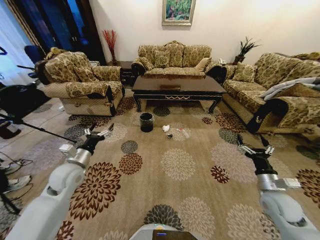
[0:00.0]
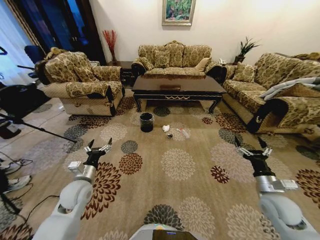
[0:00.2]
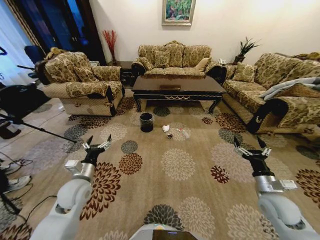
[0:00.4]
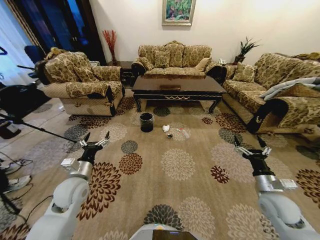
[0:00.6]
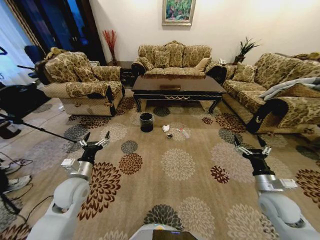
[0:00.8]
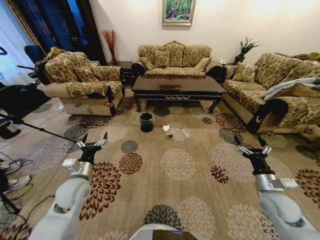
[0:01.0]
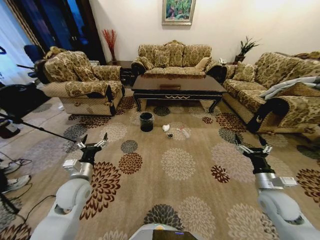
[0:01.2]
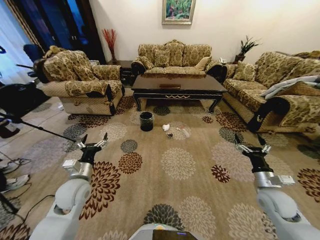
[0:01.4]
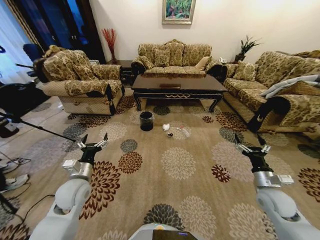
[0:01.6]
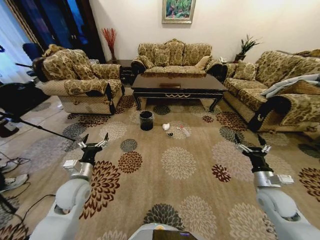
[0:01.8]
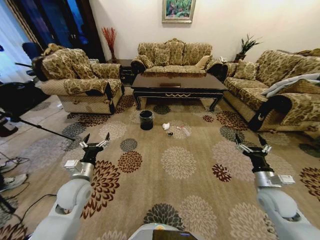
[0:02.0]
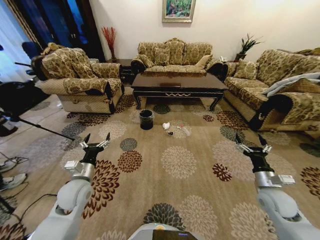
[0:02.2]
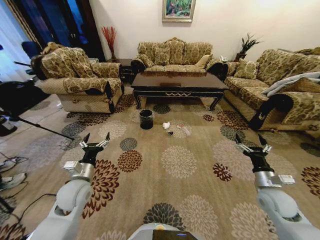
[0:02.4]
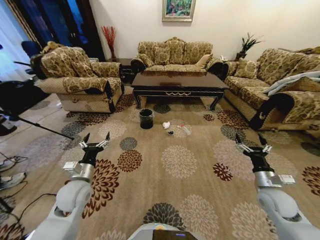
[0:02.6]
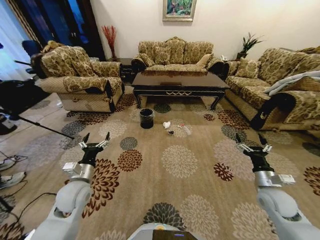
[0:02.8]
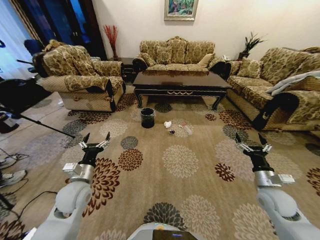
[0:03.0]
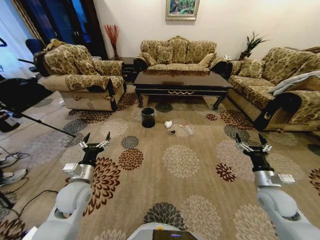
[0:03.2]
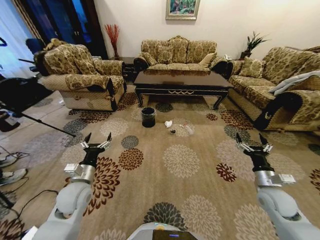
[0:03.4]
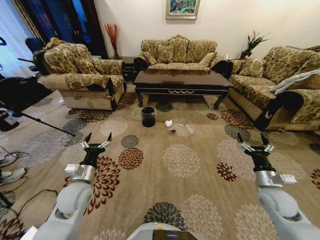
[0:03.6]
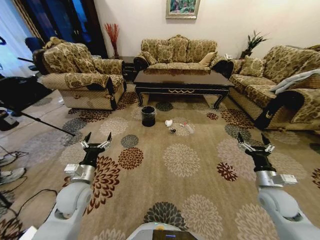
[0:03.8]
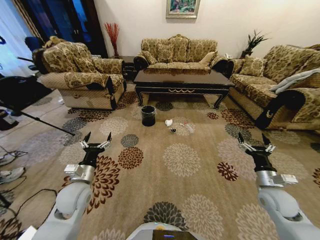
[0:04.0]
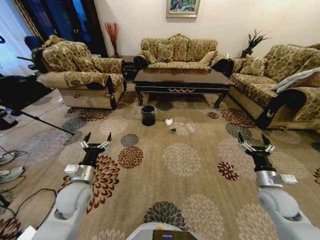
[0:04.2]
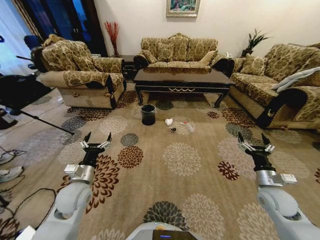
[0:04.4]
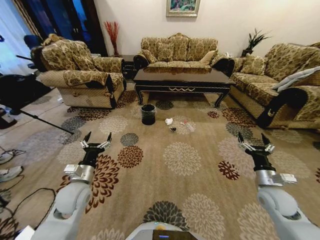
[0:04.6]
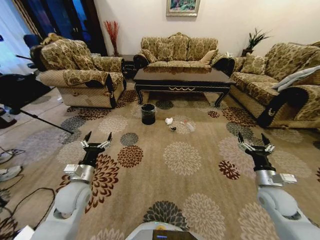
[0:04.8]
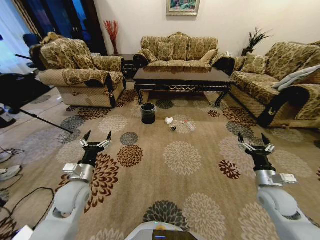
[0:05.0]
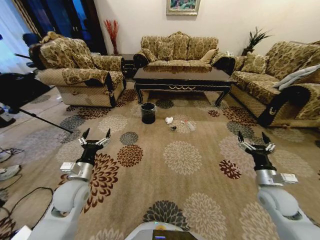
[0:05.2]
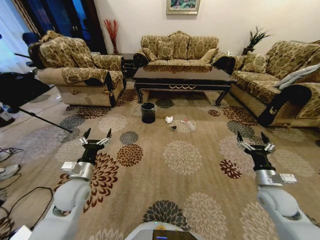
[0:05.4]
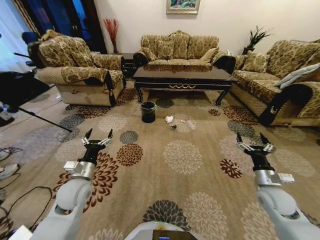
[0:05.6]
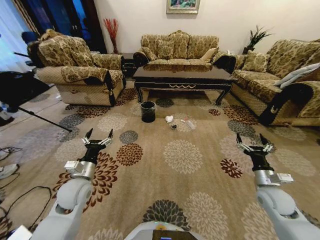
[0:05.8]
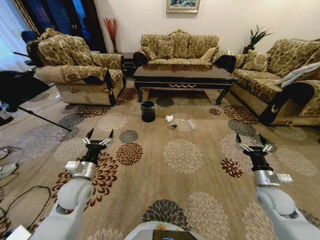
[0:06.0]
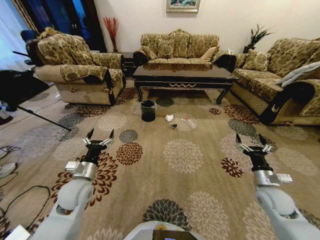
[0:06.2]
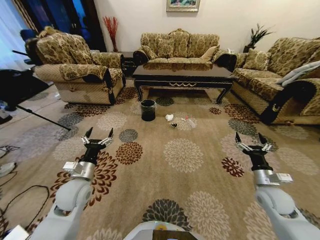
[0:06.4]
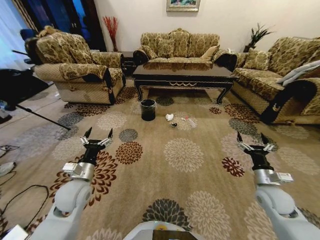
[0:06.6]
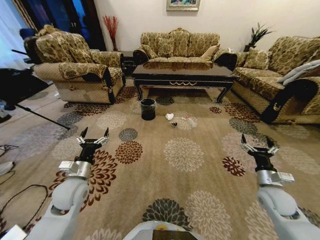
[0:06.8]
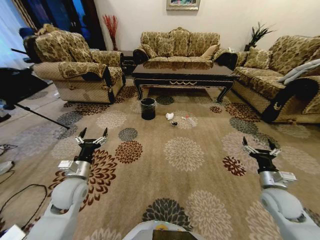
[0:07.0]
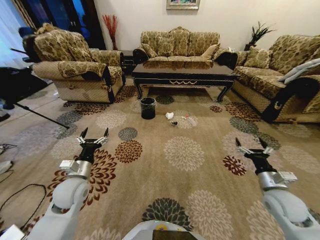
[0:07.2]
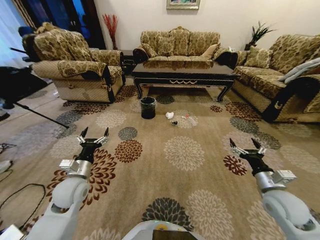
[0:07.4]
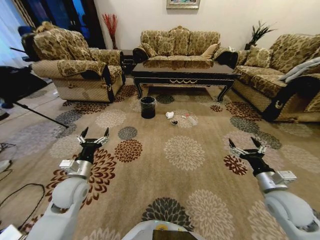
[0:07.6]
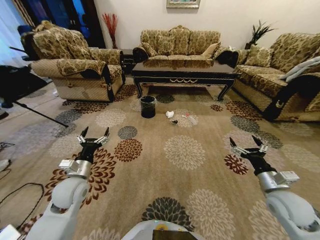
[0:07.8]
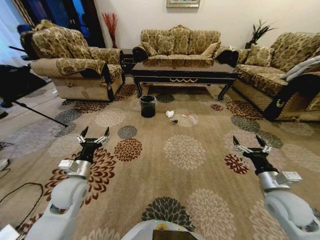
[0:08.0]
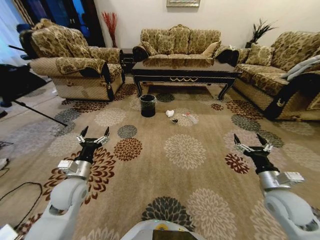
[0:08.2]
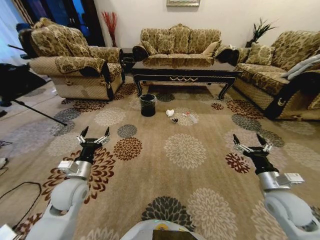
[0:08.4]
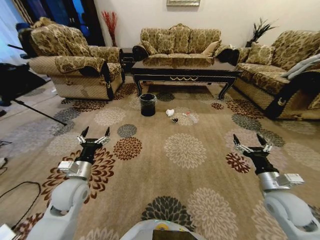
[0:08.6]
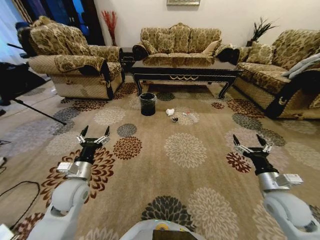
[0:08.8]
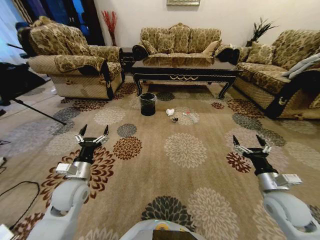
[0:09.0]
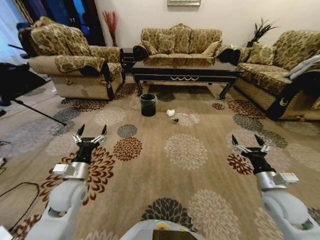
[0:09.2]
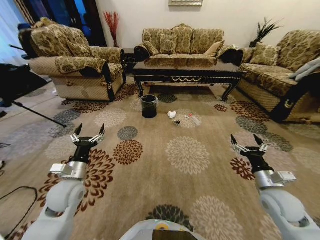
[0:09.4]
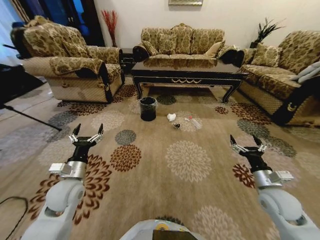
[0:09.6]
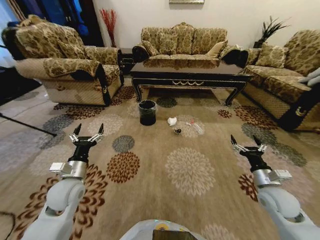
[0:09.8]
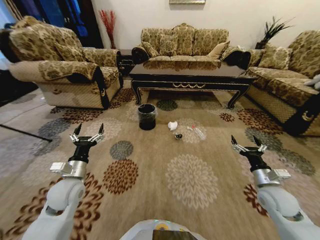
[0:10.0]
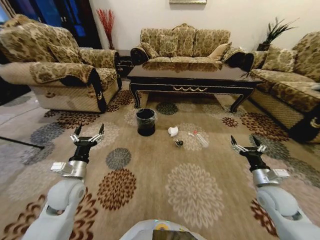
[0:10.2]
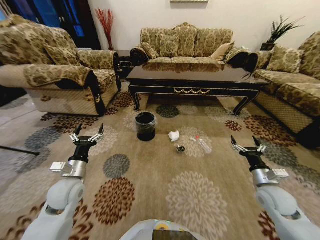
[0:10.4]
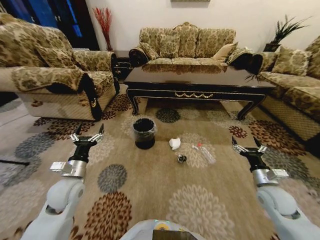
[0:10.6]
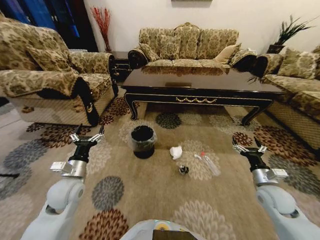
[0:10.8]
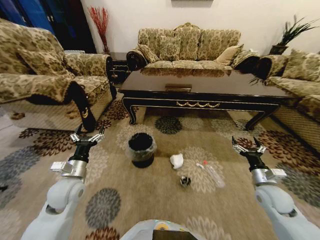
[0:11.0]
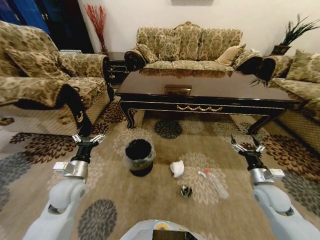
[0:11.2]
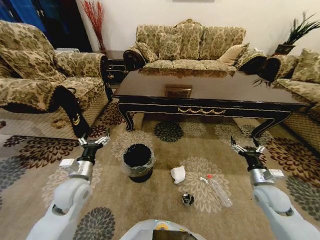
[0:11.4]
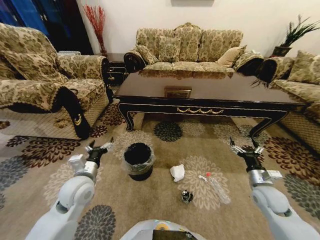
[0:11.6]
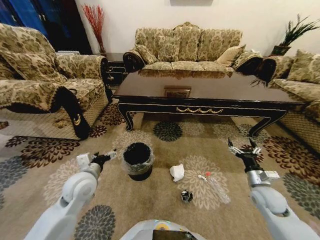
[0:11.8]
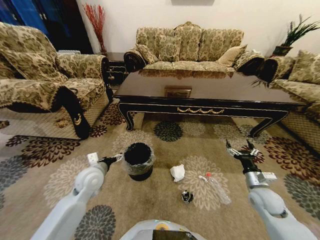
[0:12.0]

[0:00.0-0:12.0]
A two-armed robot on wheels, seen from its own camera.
Task of the whole recording: Move to the front of the table and pick up the trash from the floor, then place it into the trash bin.
0:06.0 to 0:07.6: The right gripper shifts about 5 cm upward.
0:10.4 to 0:12.0: The left gripper shifts by roughly 5 cm.

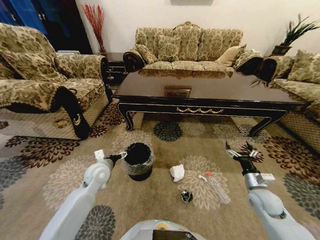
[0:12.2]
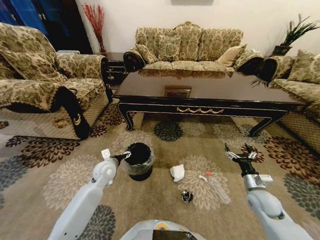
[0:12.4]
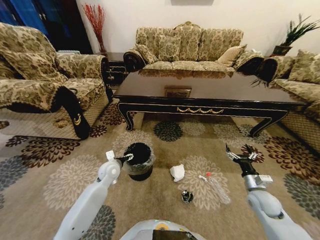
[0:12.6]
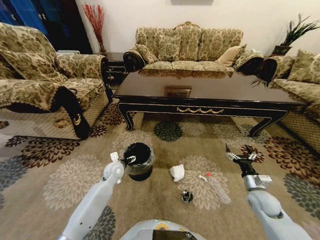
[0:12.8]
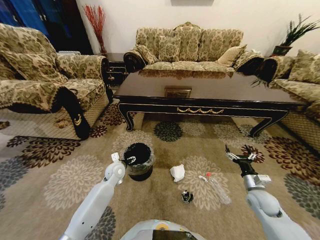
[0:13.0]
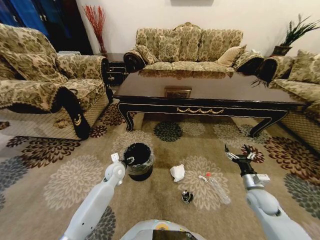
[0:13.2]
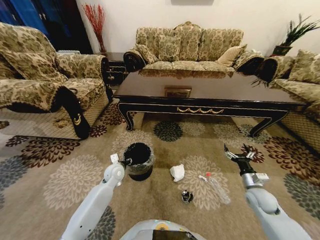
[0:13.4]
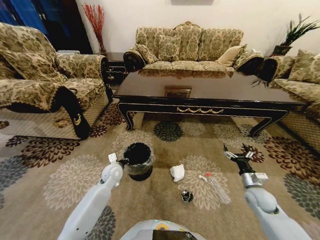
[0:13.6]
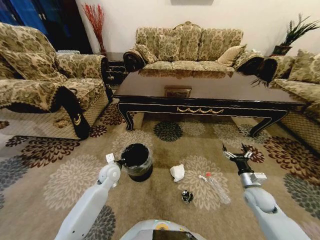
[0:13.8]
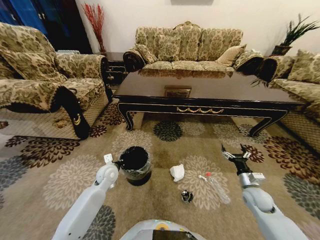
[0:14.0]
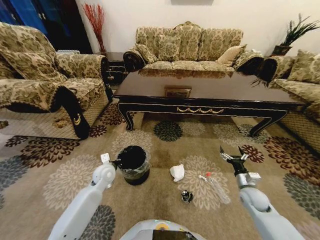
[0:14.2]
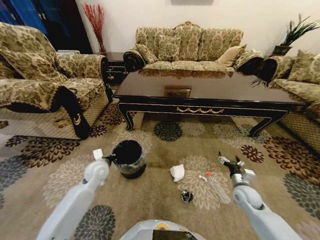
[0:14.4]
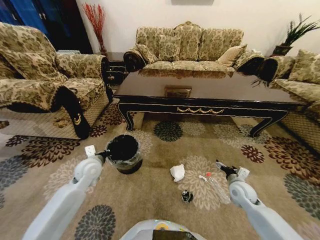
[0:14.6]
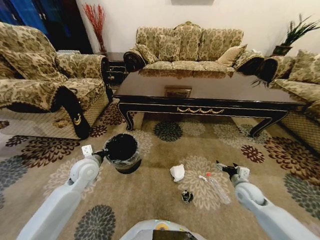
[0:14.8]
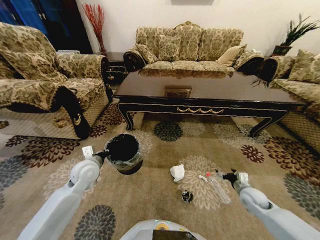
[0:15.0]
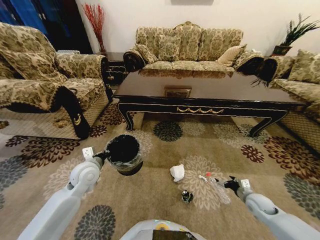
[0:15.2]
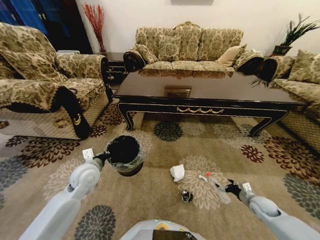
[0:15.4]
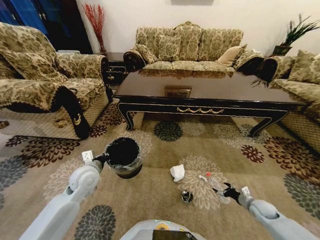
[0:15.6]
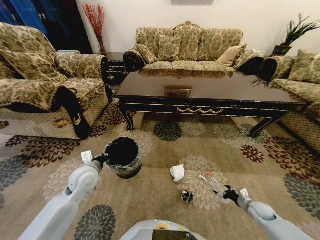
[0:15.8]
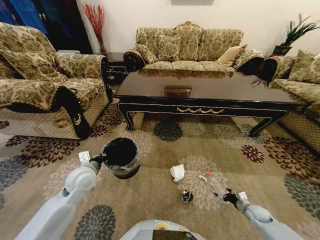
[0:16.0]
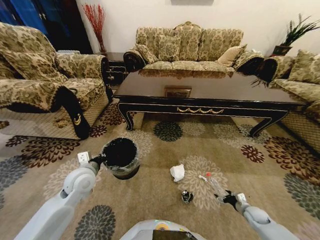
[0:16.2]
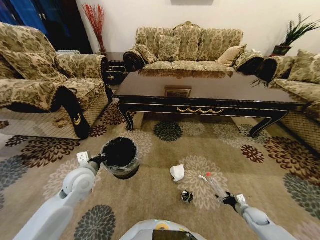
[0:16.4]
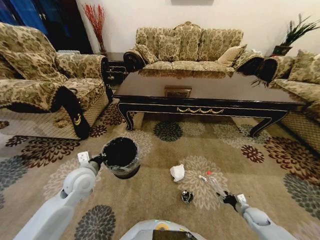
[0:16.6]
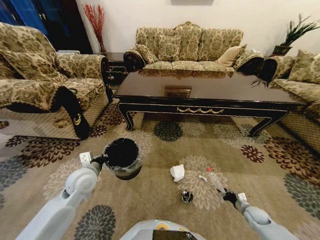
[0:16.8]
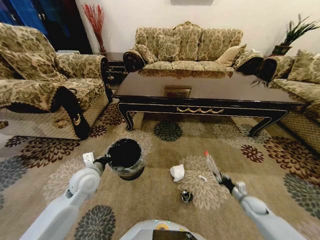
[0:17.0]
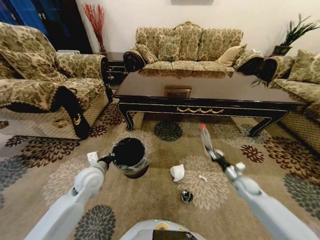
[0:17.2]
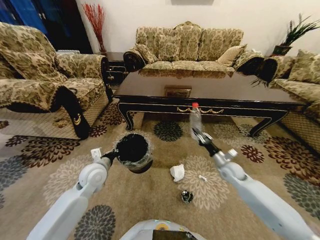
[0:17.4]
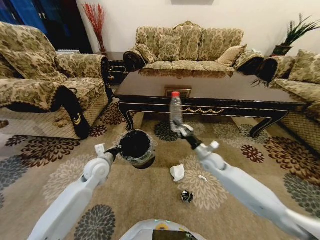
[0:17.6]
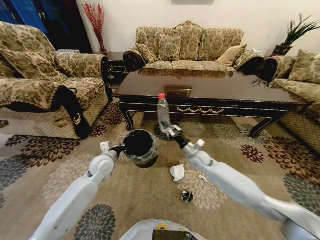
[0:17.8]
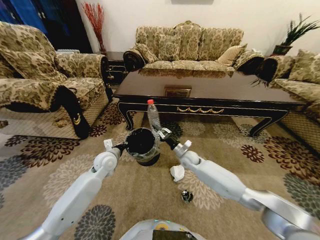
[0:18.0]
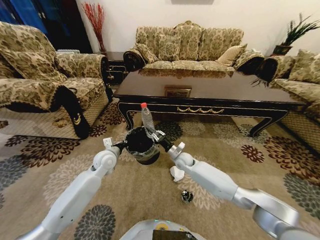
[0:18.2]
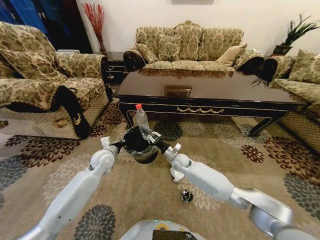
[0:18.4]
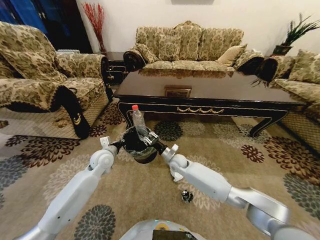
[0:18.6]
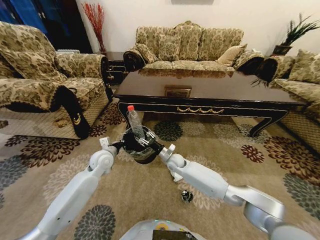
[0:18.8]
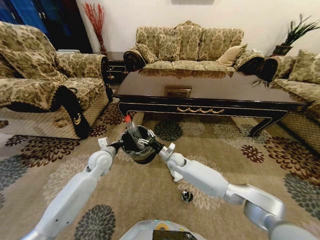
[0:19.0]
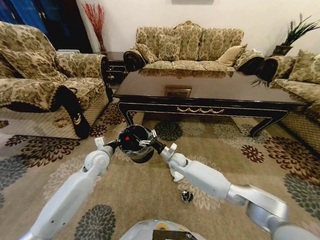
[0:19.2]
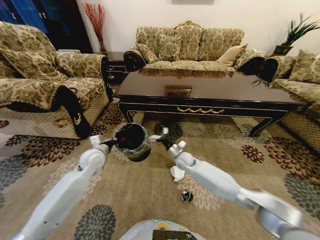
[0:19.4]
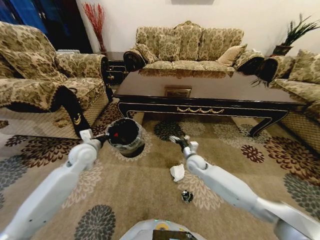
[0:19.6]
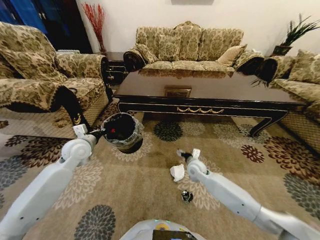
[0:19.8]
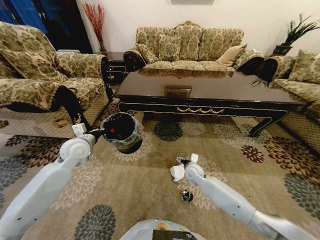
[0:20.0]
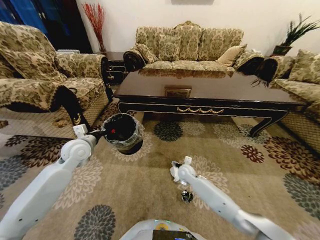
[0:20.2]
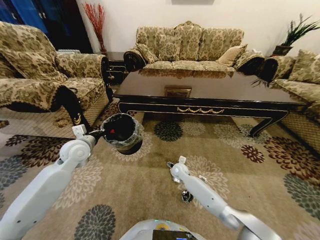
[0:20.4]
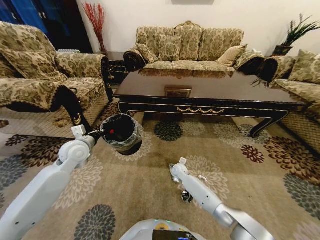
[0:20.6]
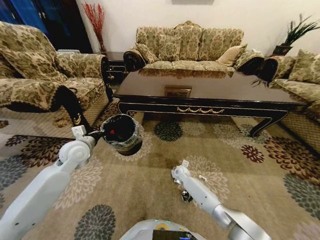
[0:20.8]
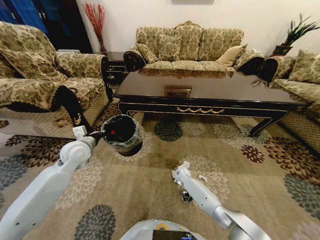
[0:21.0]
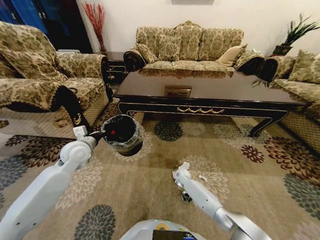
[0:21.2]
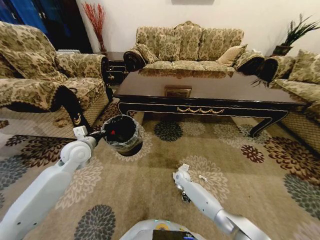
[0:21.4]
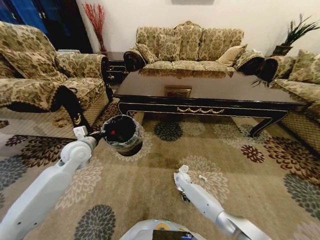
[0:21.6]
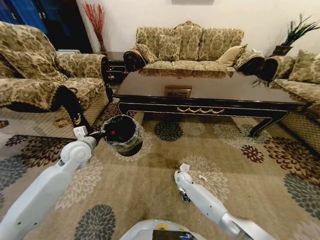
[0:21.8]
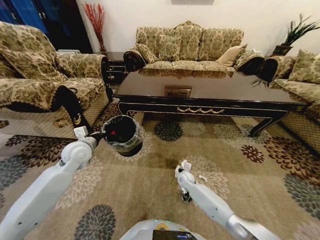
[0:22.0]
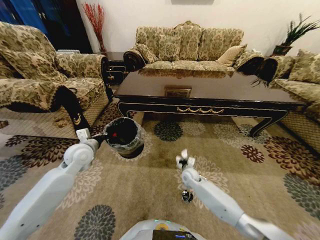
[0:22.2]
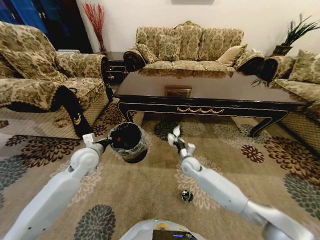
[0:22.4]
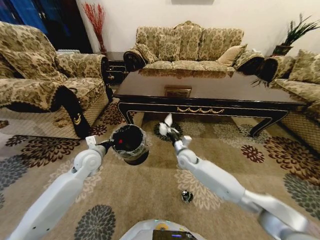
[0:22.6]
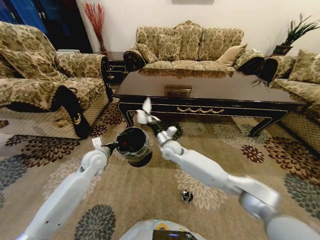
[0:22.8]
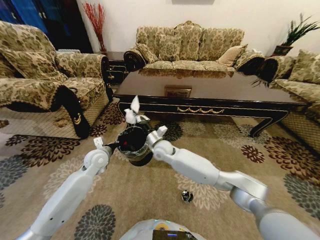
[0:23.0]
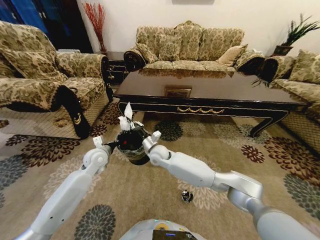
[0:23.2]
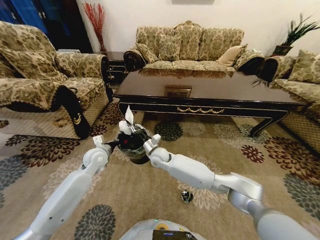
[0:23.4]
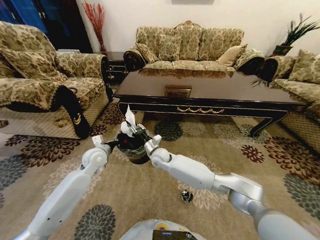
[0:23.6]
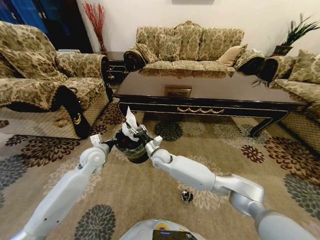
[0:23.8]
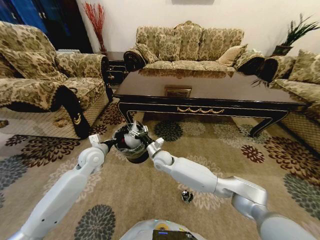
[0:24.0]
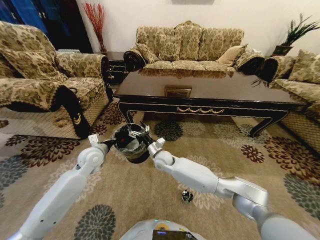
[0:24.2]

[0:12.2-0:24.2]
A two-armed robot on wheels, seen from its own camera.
Task of the whole recording: Move to the front of the table and pick up the trash from the floor, then place it into the trash bin.
0:12.2 to 0:13.8: The left gripper moves downward, roughly 5 cm, and closes up.
0:13.8 to 0:15.2: The right gripper goes approximately 5 cm downward; the left gripper is displaced upward by roughly 10 cm.
0:15.2 to 0:16.6: The right gripper travels downward by about 10 cm, and closes up.
0:16.6 to 0:18.2: The right gripper shifts roughly 50 cm to the left, forward and upward, and closes its fingers; the left gripper heads forward, covering some 10 cm.
0:18.2 to 0:19.8: The right gripper goes approximately 5 cm to the right, and opens its fingers. The left gripper goes roughly 10 cm upward and to the left.
0:19.8 to 0:21.2: The right gripper shifts roughly 15 cm downward.
0:21.2 to 0:22.6: The right gripper heads upward, covering approximately 20 cm, and closes; the left gripper moves approximately 5 cm.
0:22.6 to 0:24.2: The right gripper moves to the left, approximately 15 cm, and opens up.
